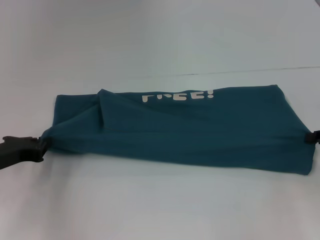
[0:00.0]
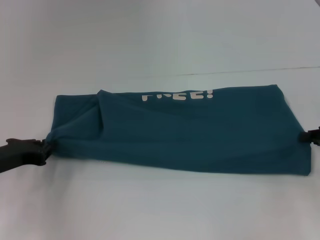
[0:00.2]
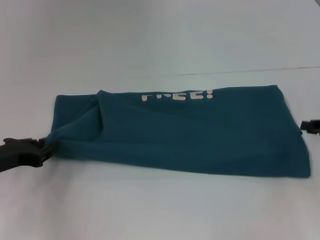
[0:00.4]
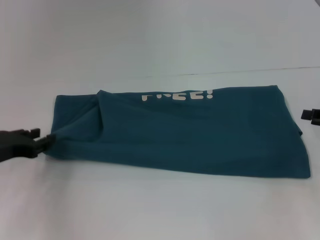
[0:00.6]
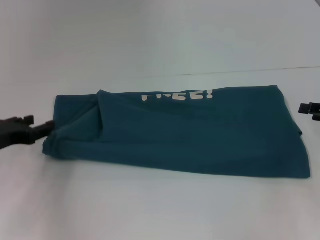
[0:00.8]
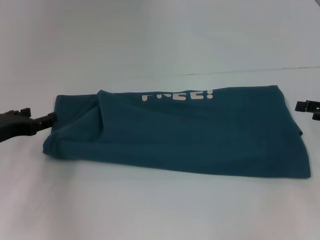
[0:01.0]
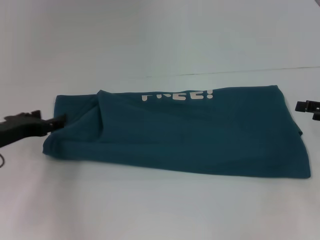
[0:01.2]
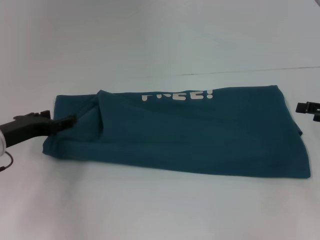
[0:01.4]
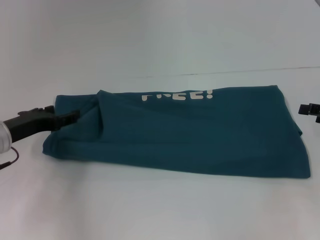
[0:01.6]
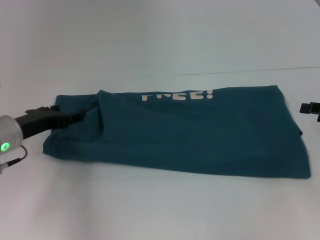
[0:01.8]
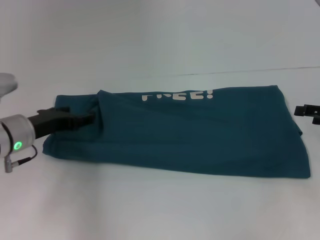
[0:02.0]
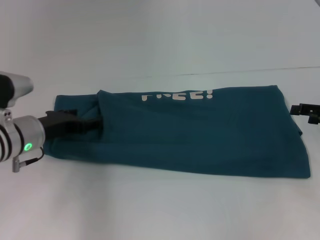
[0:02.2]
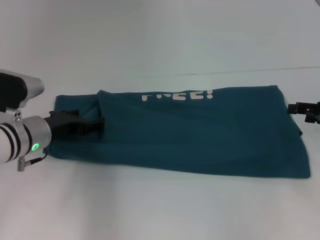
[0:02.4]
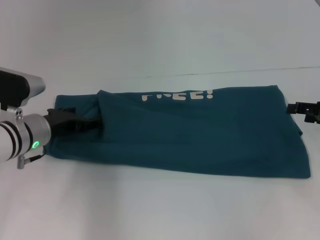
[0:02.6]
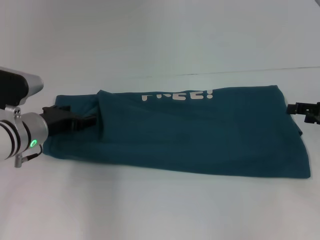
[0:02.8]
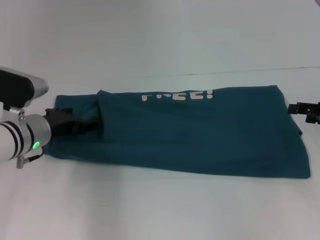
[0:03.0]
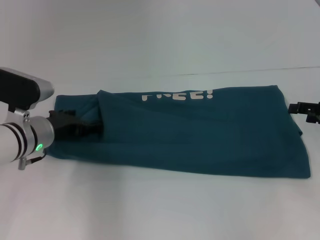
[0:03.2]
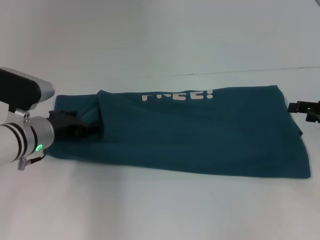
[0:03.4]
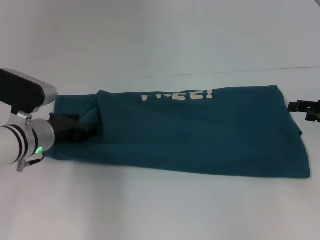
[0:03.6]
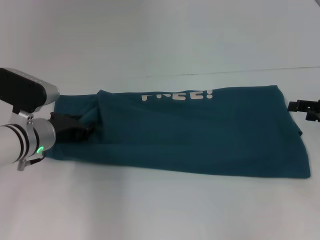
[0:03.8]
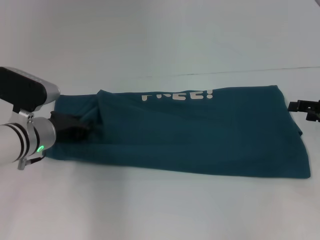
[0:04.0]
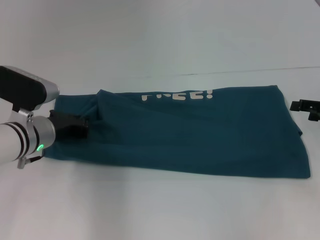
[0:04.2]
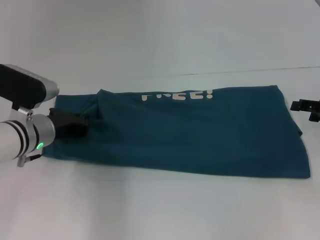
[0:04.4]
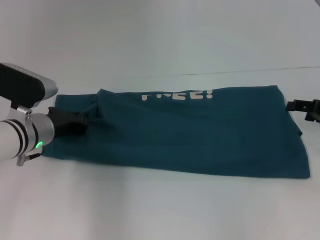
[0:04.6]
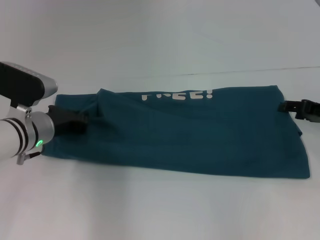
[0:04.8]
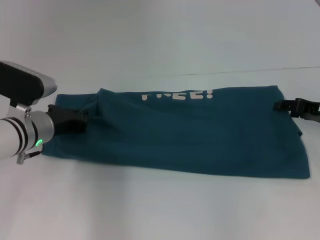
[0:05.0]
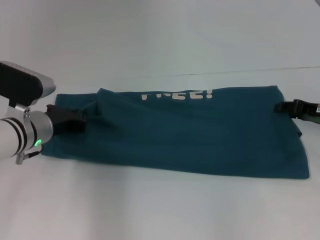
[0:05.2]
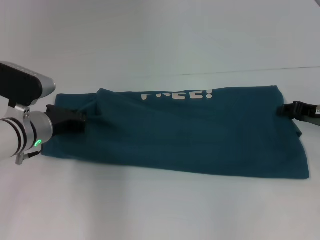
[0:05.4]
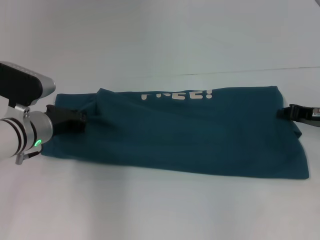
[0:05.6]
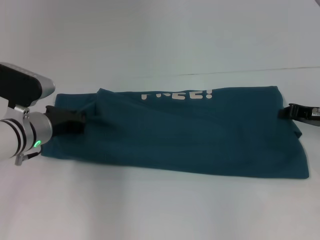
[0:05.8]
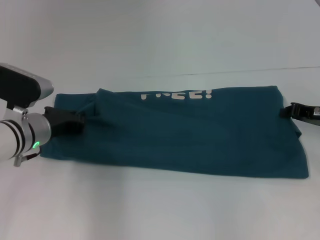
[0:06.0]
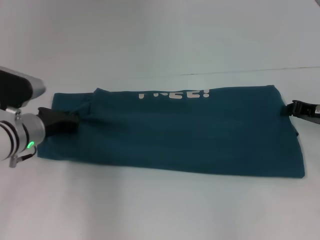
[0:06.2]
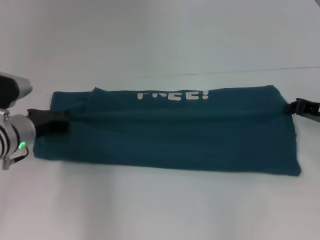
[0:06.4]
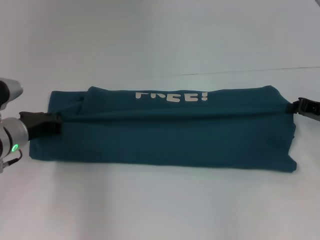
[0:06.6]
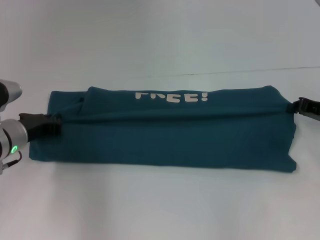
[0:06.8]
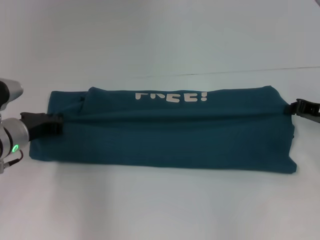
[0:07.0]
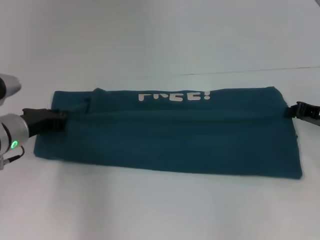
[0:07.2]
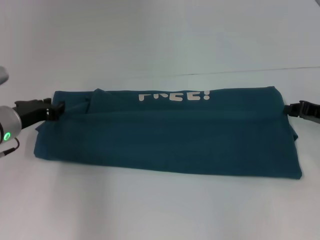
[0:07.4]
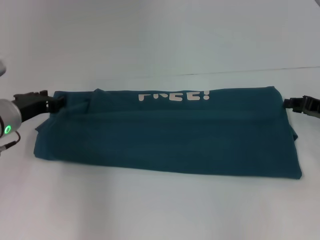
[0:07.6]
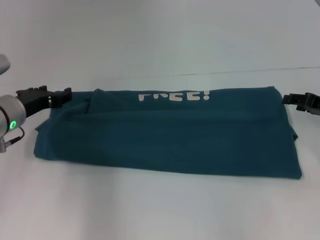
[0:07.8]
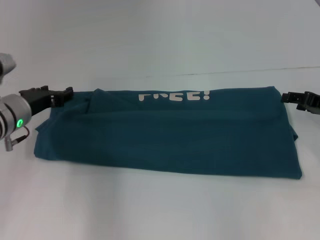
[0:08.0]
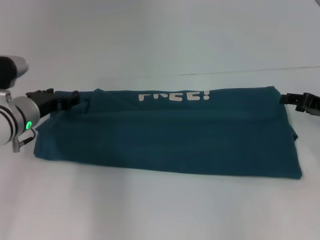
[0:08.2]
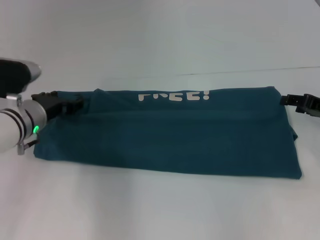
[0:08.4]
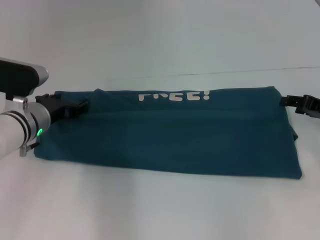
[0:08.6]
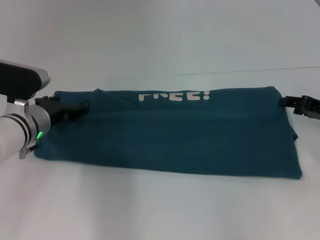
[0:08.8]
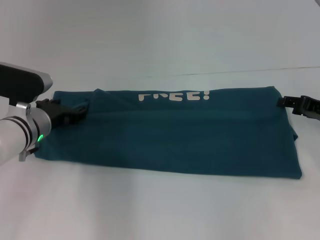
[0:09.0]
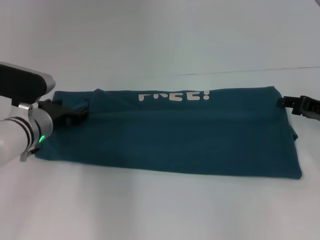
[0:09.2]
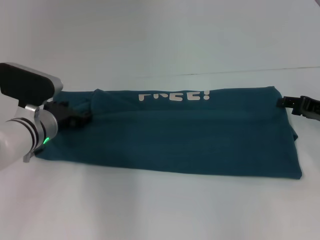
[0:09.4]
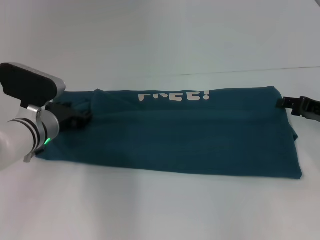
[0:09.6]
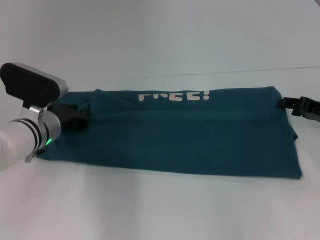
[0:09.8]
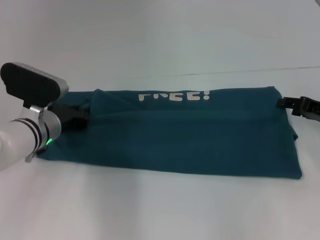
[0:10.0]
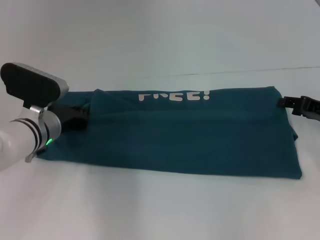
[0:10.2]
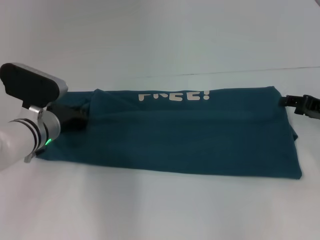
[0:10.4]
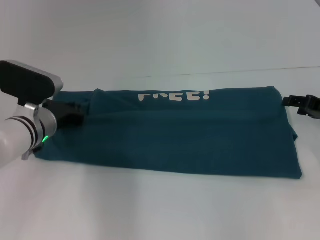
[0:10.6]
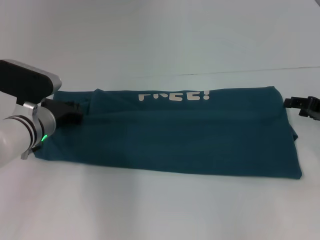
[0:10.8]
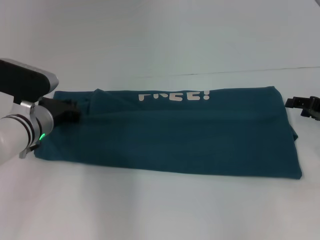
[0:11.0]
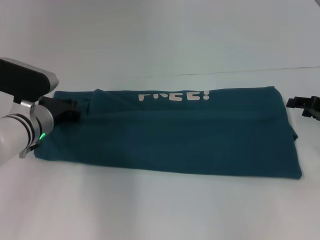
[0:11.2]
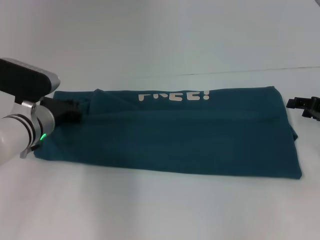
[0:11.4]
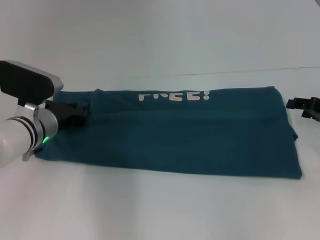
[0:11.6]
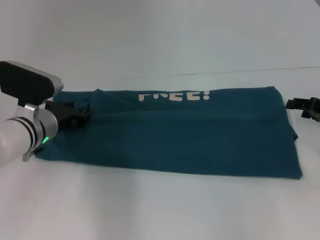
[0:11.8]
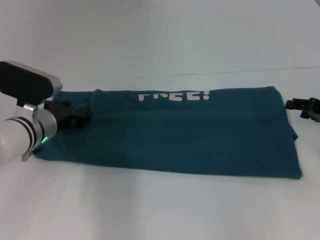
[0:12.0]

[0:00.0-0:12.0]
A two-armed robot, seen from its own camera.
0:00.0 to 0:01.6: The left gripper opens its fingers; the right gripper opens.
0:01.6 to 0:03.0: The left gripper travels to the right by roughly 5 cm.
0:03.0 to 0:04.4: The left gripper closes.
0:04.4 to 0:06.0: The right gripper shifts by some 5 cm, and closes up.
0:06.0 to 0:07.6: The left gripper opens up.
0:07.6 to 0:09.0: The left gripper ends up roughly 5 cm from where it was, and opens its fingers. Meanwhile the right gripper opens its fingers.
0:09.0 to 0:10.4: The left gripper closes up.
0:10.4 to 0:12.0: Neither gripper changes place.

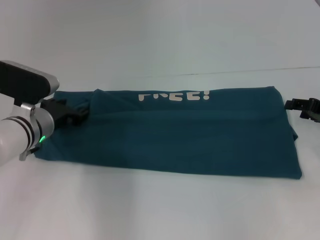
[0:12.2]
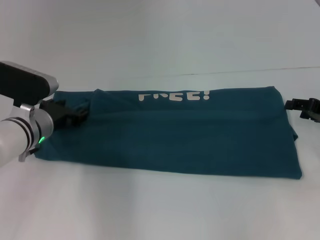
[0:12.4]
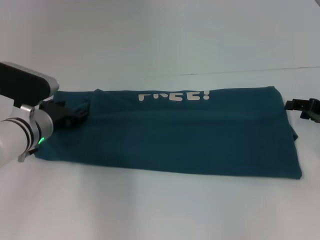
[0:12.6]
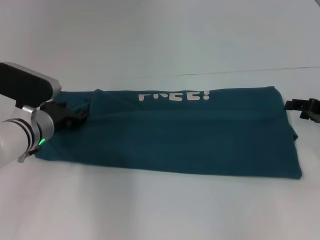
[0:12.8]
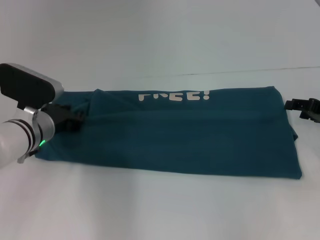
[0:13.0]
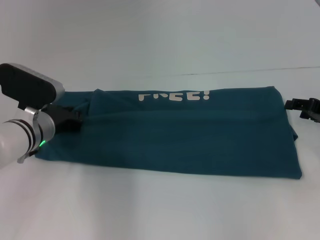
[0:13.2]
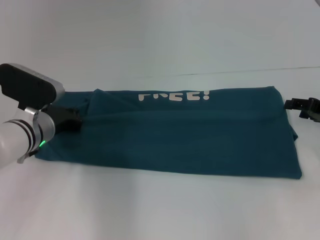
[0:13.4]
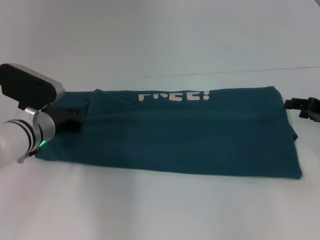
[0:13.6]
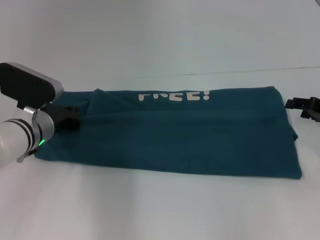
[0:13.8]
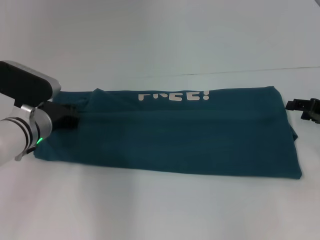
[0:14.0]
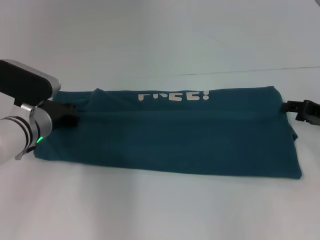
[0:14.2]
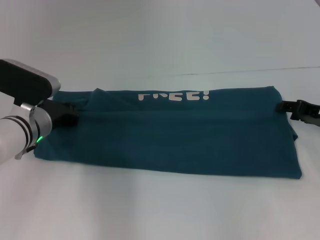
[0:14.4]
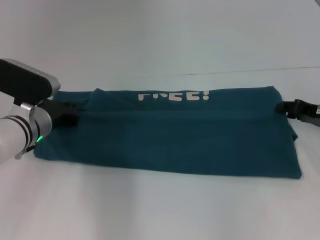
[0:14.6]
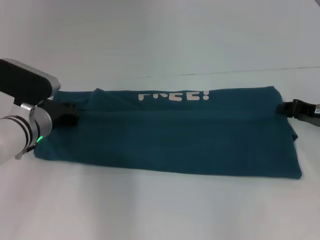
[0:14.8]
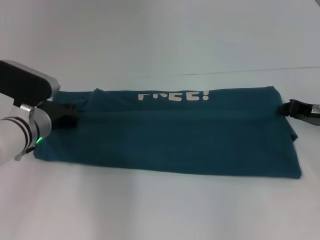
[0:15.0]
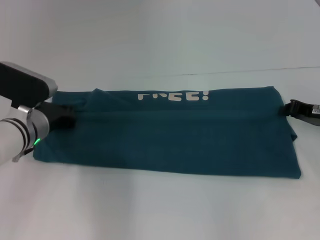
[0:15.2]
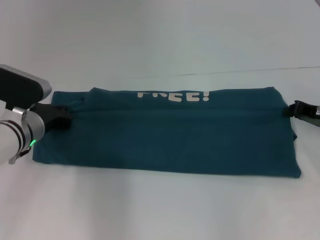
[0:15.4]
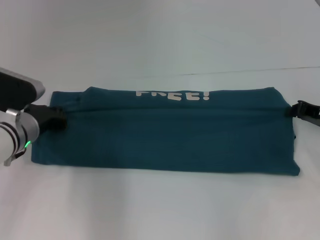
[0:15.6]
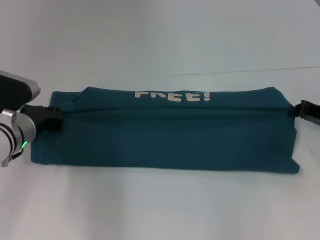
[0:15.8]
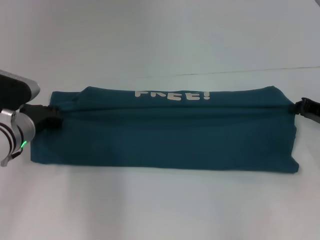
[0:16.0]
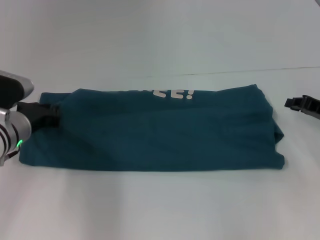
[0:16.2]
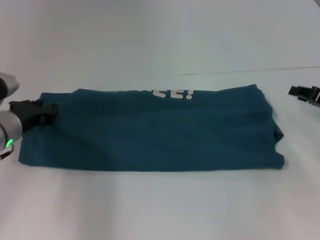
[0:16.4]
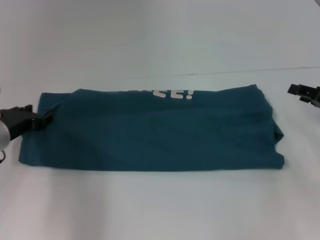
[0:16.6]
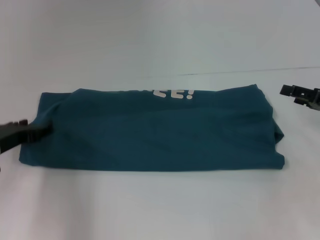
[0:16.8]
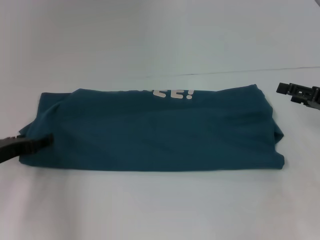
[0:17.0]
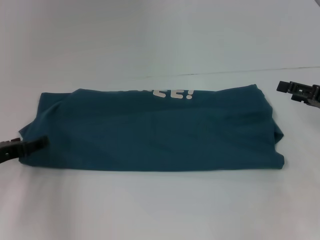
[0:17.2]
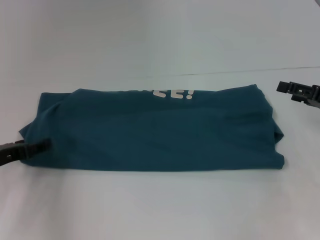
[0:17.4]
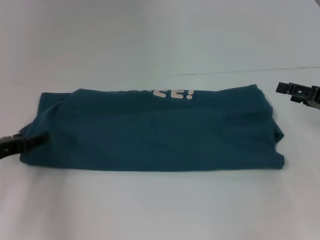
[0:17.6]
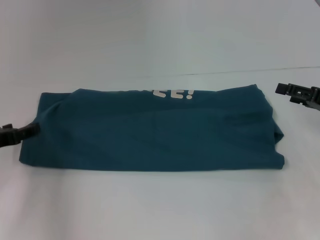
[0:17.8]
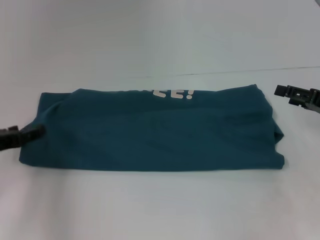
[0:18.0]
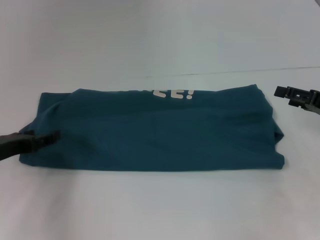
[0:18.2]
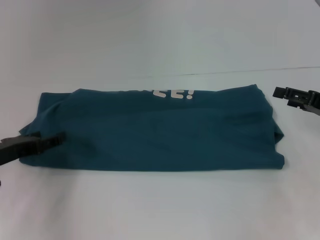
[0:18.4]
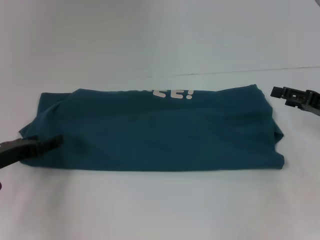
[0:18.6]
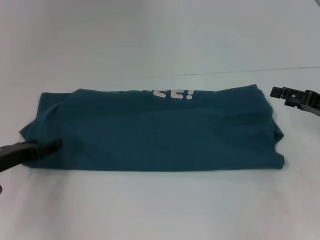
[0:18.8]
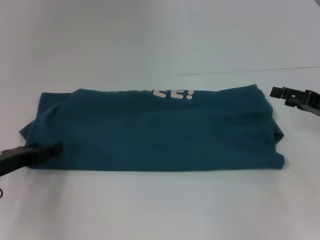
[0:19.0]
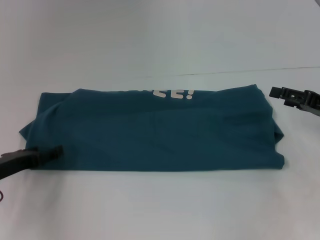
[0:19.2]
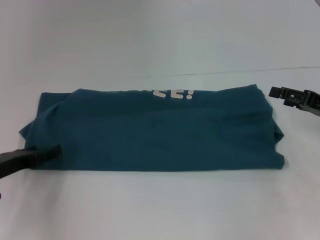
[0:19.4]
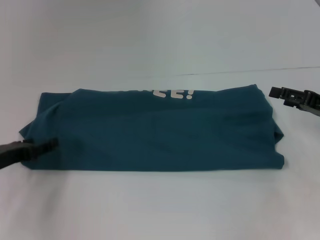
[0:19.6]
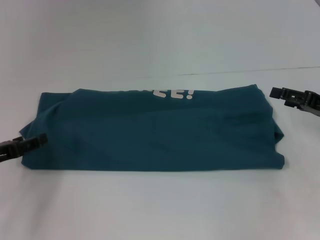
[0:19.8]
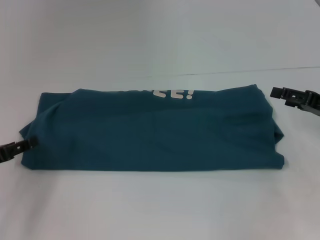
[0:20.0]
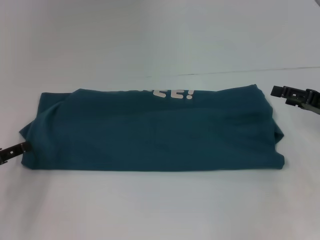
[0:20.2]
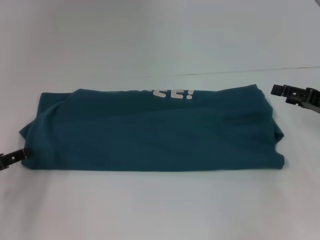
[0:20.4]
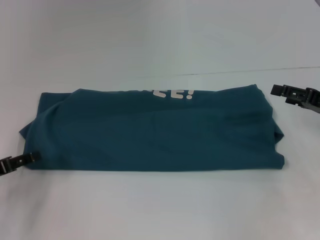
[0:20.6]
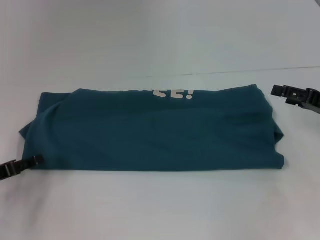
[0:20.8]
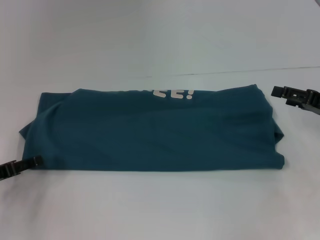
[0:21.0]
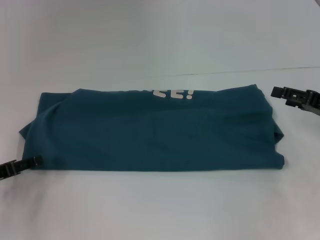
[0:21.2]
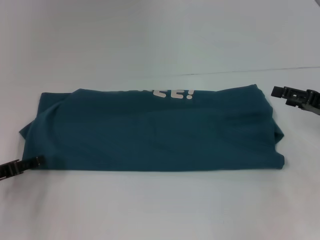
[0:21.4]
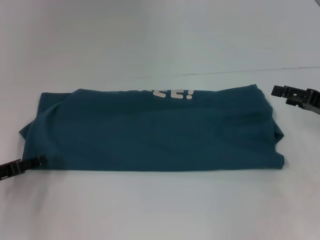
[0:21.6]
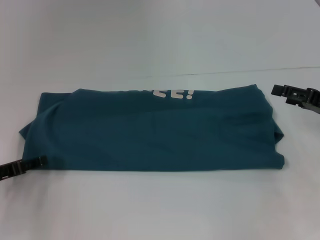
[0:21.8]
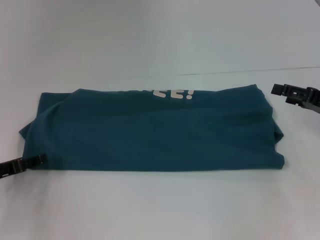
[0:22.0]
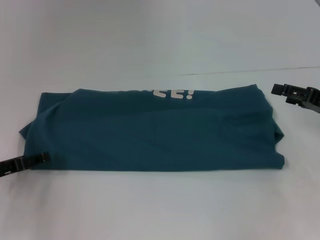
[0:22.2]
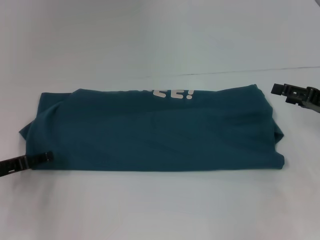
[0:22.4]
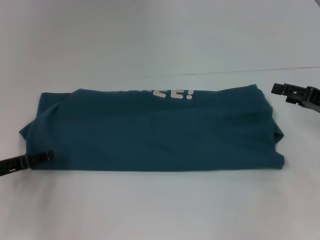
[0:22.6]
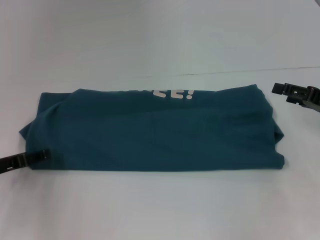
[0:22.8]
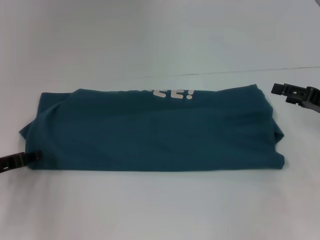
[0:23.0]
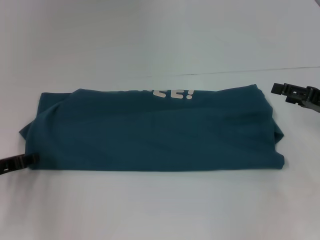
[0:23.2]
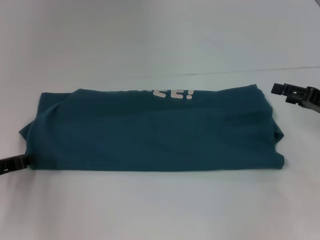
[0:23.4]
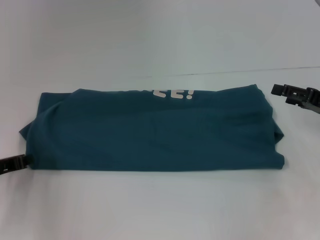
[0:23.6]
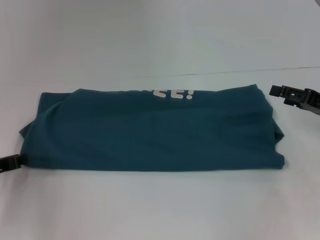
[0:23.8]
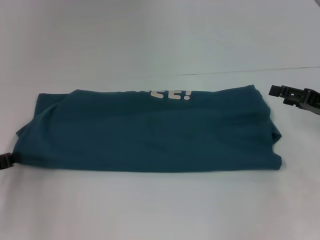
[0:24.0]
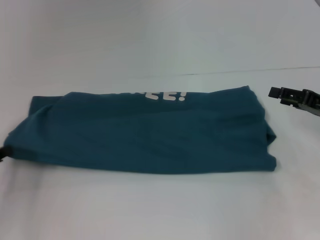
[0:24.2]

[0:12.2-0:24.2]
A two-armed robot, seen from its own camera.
0:12.2 to 0:13.8: The left gripper closes.
0:13.8 to 0:15.2: The right gripper closes.
0:15.2 to 0:16.6: The left gripper heads to the left, covering about 5 cm.
0:16.6 to 0:18.2: The right gripper opens, while the left gripper changes place by approximately 5 cm, and opens.
0:18.2 to 0:22.6: The grippers make only small movements.
0:22.6 to 0:24.2: The left gripper closes its fingers.
